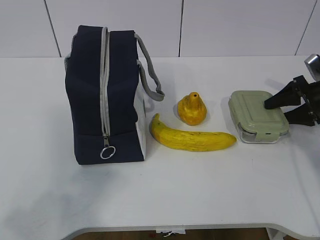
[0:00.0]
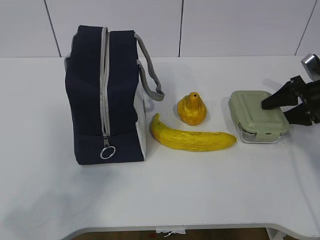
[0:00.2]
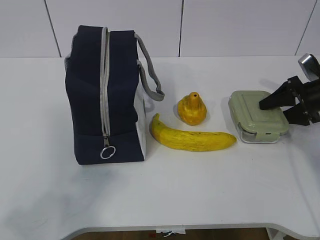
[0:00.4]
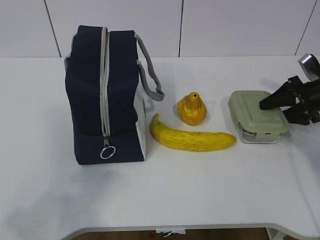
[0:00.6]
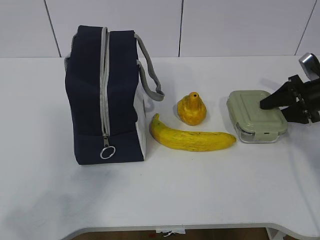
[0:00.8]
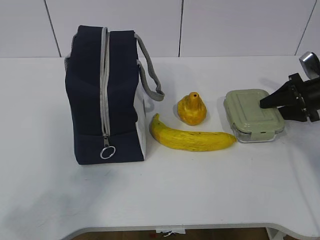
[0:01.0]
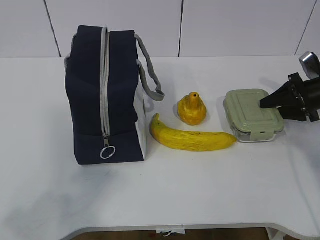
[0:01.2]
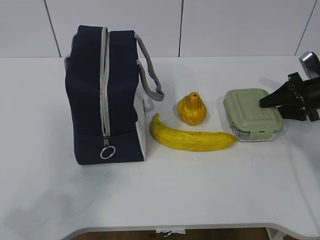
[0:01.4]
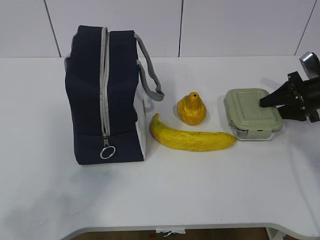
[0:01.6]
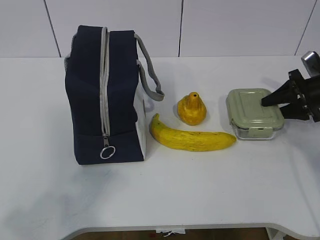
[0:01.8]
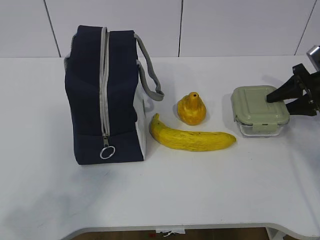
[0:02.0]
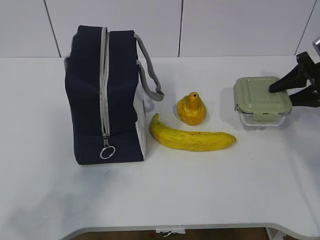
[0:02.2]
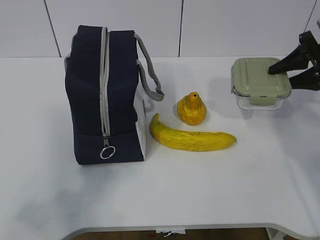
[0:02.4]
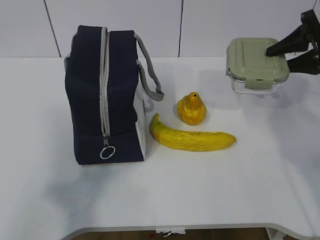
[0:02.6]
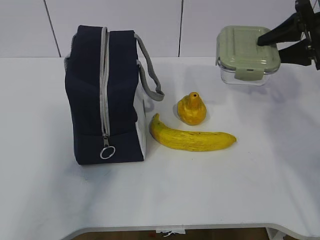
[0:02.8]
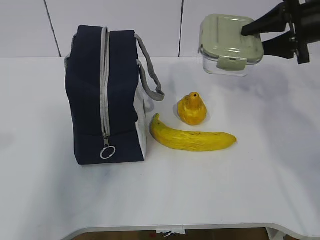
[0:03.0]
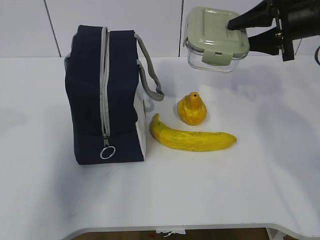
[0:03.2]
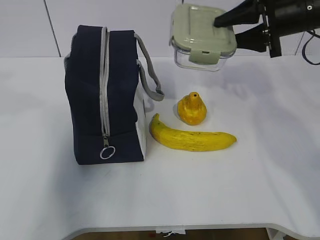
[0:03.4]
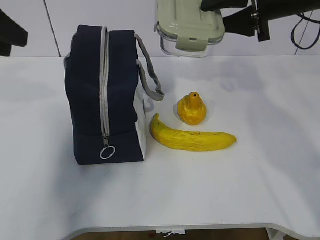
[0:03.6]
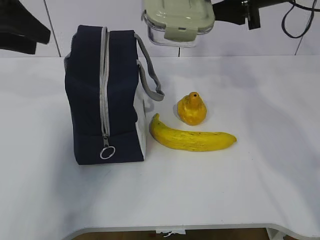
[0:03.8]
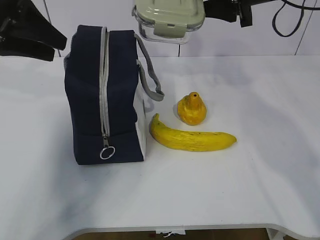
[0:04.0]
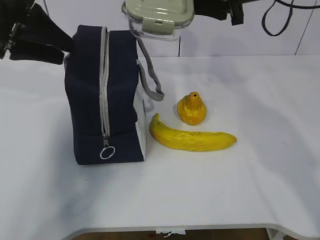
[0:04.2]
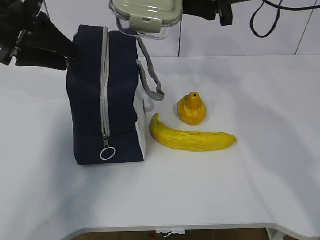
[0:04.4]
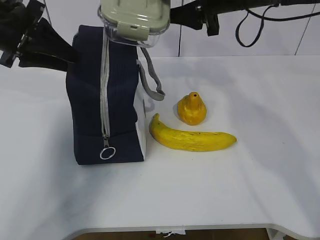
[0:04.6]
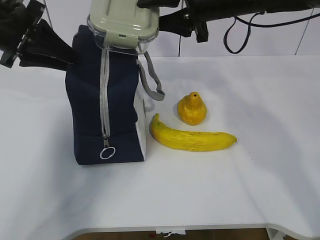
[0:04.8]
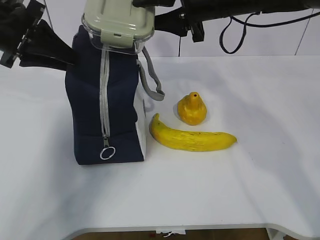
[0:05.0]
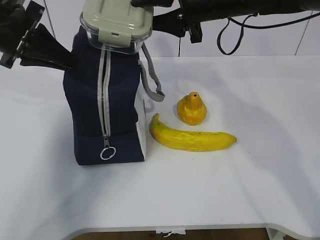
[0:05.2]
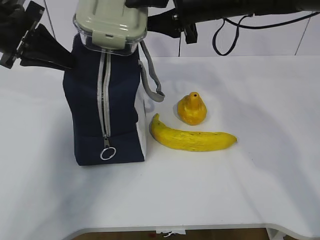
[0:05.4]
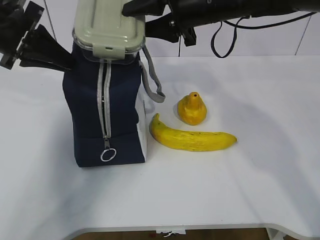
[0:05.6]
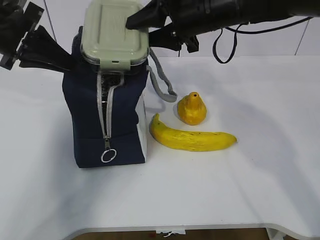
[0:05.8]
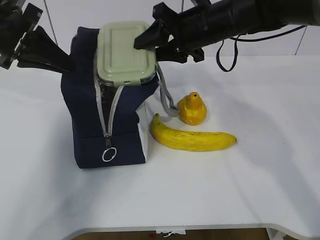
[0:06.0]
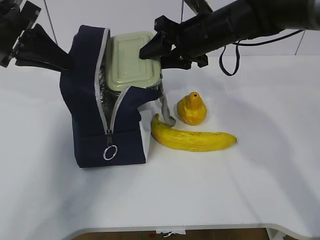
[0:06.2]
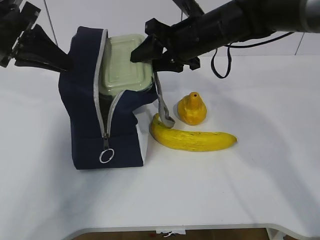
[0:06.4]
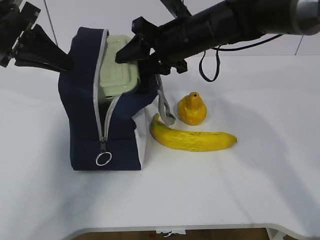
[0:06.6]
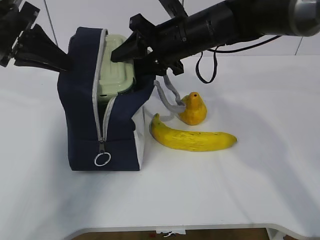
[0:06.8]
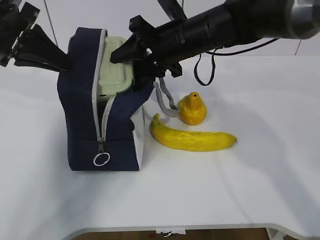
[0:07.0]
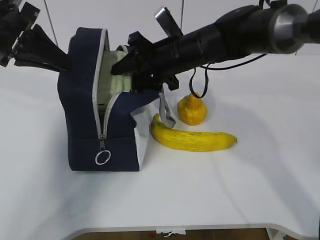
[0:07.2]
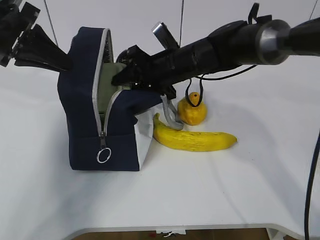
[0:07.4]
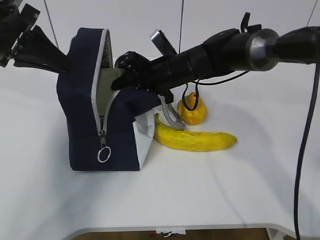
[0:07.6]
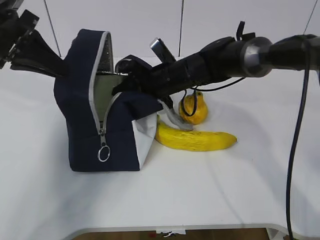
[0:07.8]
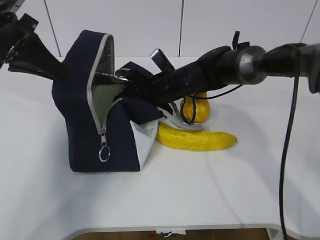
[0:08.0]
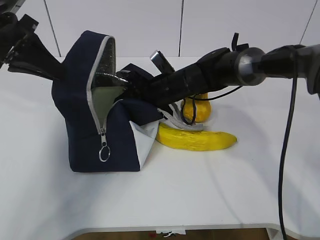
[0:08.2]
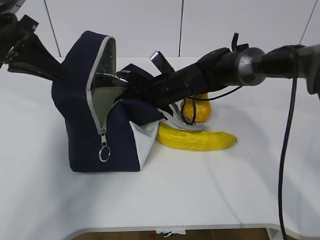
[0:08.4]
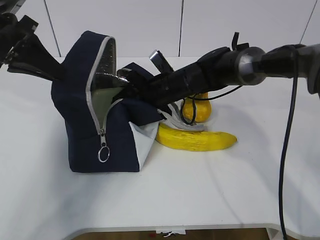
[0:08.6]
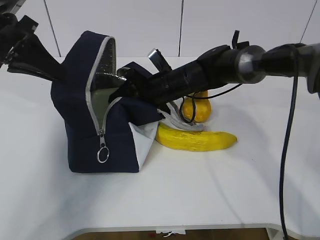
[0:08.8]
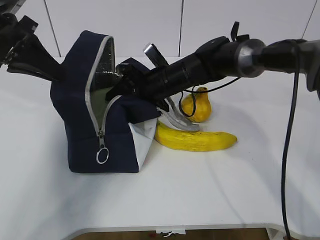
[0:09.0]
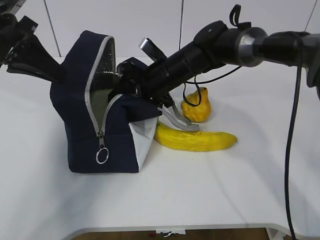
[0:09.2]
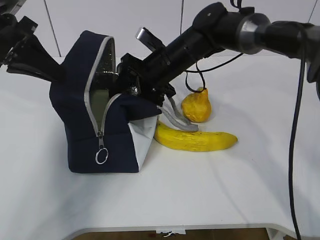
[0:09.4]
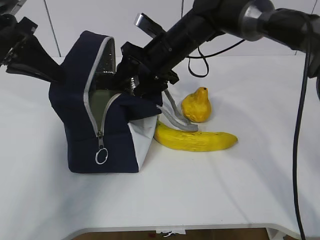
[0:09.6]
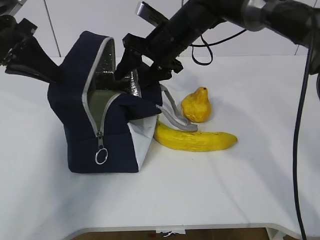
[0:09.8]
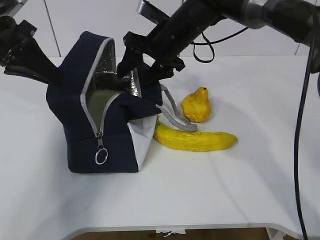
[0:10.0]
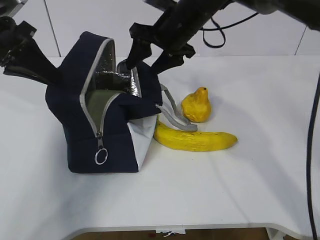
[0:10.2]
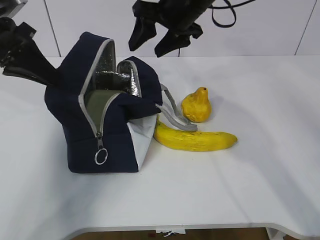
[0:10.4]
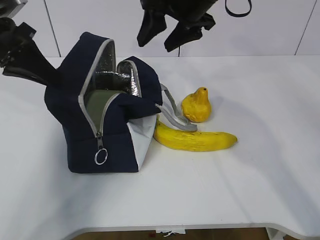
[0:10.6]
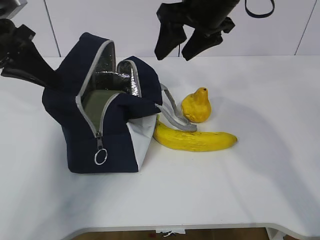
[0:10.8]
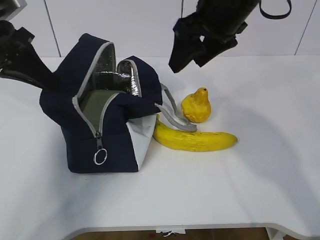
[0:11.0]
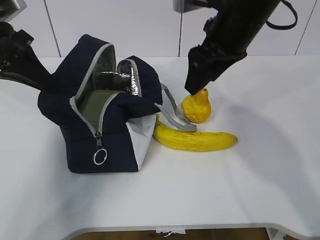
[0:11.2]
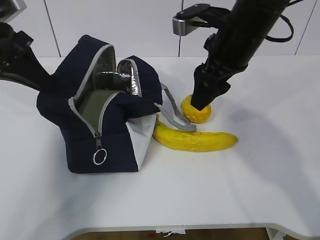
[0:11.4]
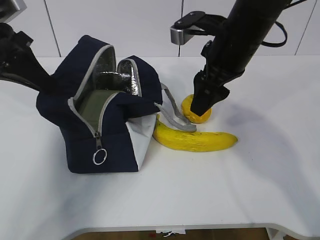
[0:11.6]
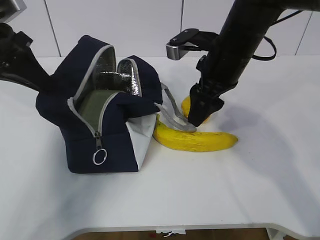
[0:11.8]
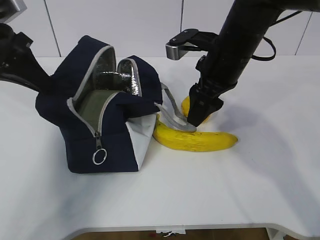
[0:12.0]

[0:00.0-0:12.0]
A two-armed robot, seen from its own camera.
Step, 0:00.4 to 0:03.4: Grab the lunch bag with your left hand.
Step, 0:03.6 to 0:06.4: Place it into the bag with your right hand.
0:00.0 to 0:01.6: Neither gripper changes place.
0:01.6 to 0:03.0: The left gripper is displaced forward and upward by about 15 cm. The right gripper travels upward and to the left by some 15 cm.
0:03.0 to 0:04.4: The right gripper travels to the left and upward by approximately 15 cm, while the left gripper heads forward, covering approximately 25 cm.
0:04.4 to 0:06.0: The left gripper closes up. Meanwhile the right gripper goes some 10 cm downward and to the left.
0:06.0 to 0:07.6: The right gripper shifts about 10 cm downward.
0:07.6 to 0:09.0: The grippers move only a little.
0:09.0 to 0:10.4: The right gripper heads upward, covering about 15 cm.
0:10.4 to 0:12.0: The right gripper goes about 10 cm backward and downward.

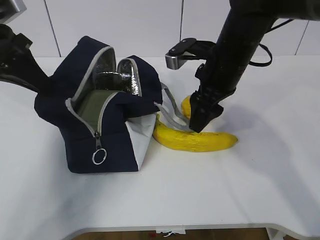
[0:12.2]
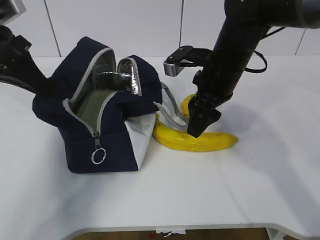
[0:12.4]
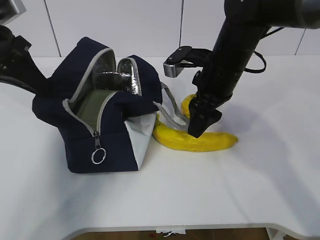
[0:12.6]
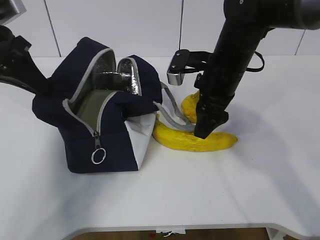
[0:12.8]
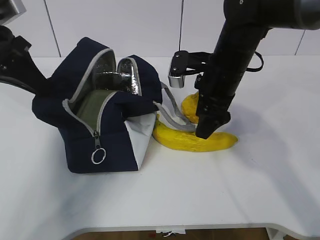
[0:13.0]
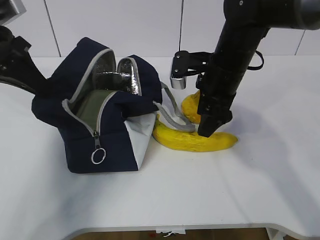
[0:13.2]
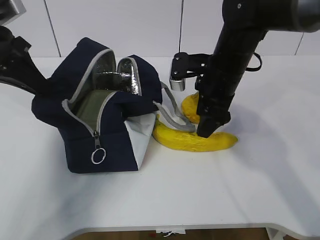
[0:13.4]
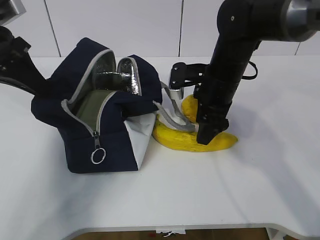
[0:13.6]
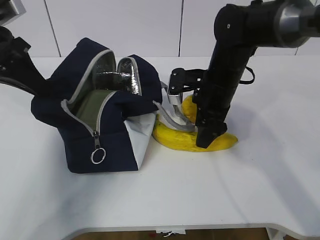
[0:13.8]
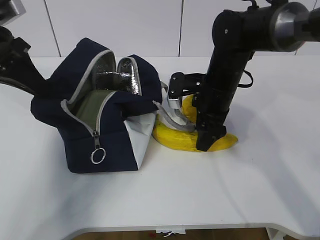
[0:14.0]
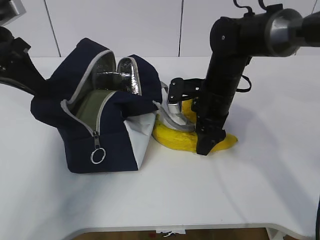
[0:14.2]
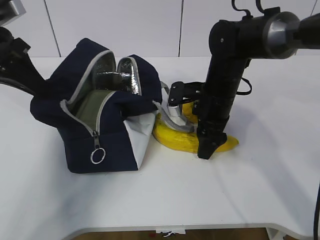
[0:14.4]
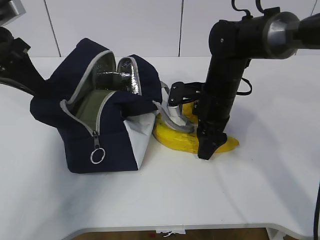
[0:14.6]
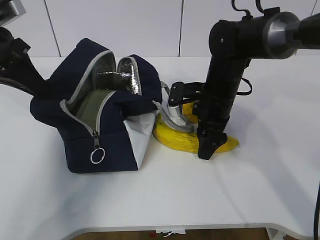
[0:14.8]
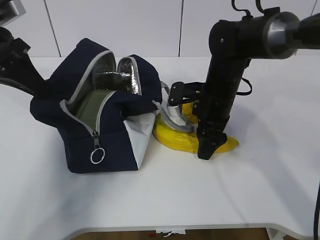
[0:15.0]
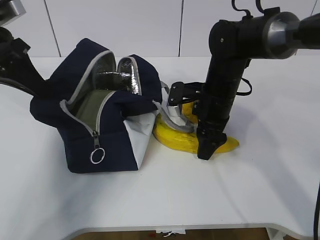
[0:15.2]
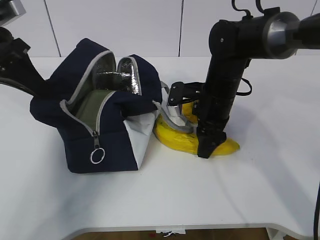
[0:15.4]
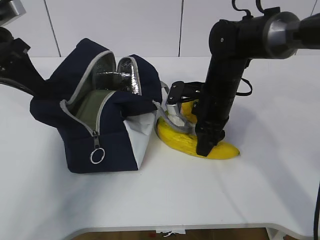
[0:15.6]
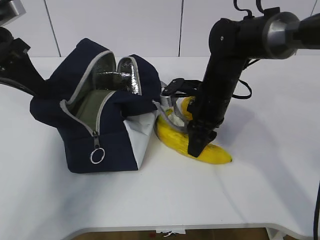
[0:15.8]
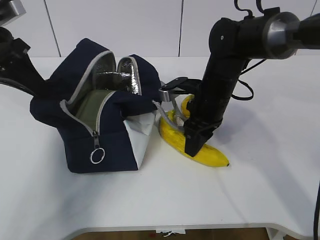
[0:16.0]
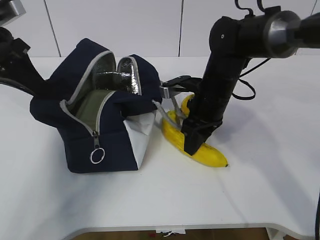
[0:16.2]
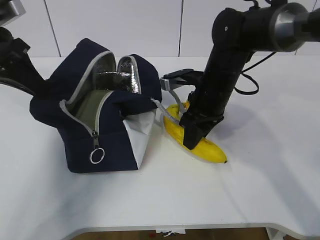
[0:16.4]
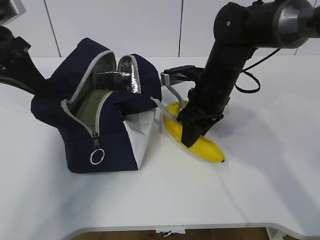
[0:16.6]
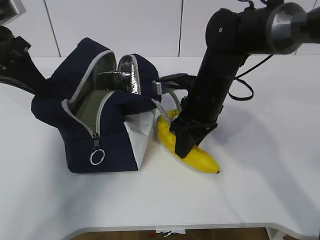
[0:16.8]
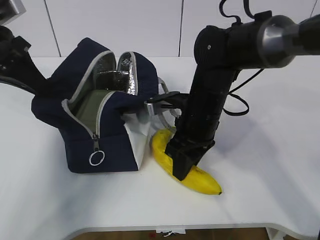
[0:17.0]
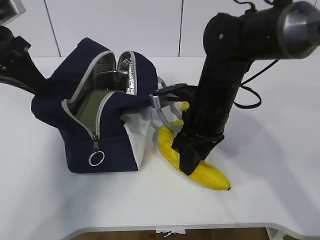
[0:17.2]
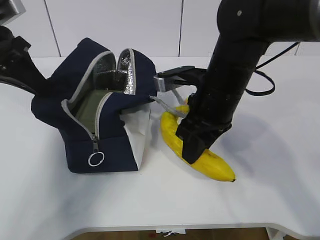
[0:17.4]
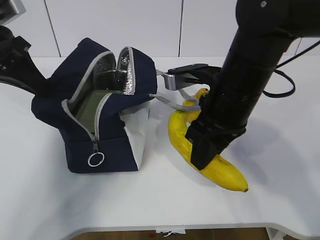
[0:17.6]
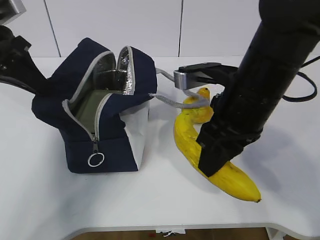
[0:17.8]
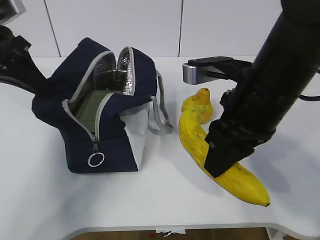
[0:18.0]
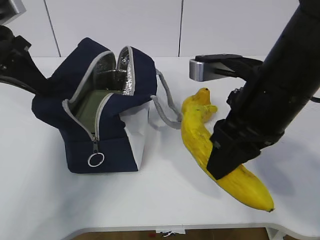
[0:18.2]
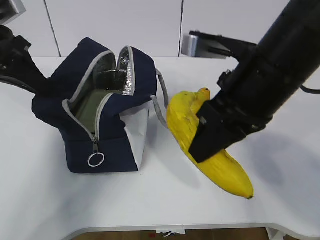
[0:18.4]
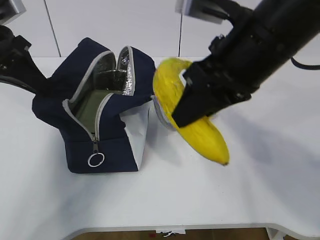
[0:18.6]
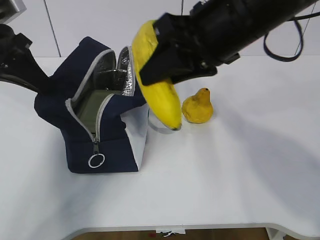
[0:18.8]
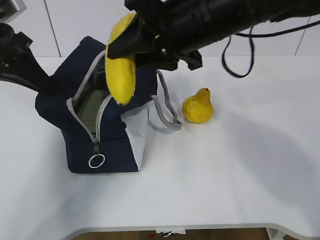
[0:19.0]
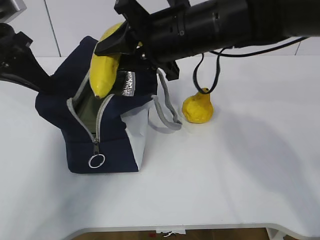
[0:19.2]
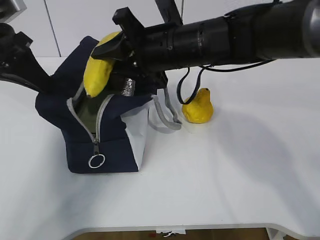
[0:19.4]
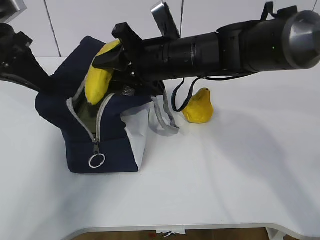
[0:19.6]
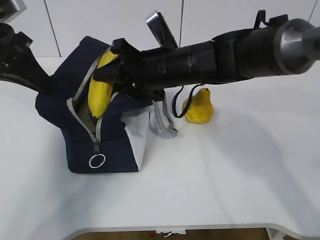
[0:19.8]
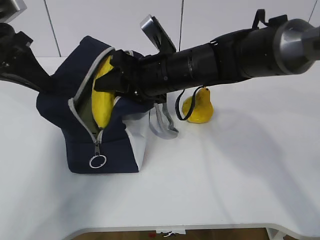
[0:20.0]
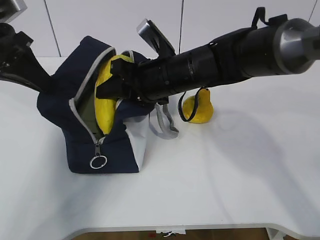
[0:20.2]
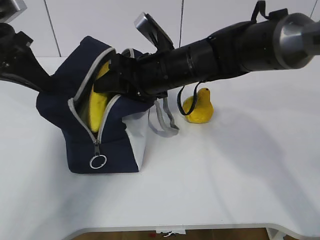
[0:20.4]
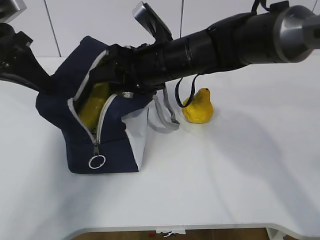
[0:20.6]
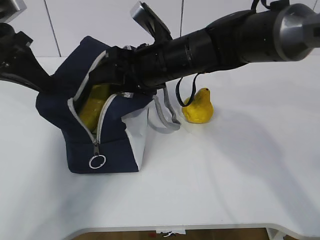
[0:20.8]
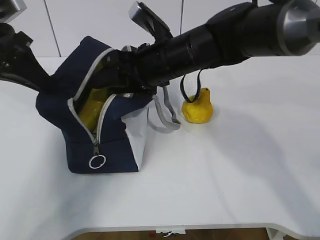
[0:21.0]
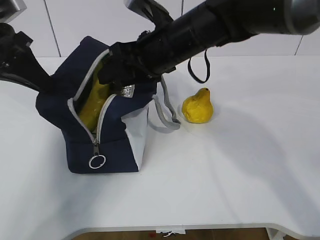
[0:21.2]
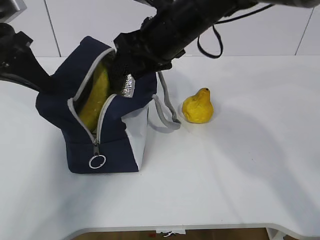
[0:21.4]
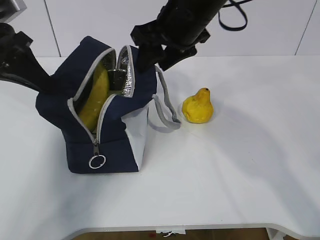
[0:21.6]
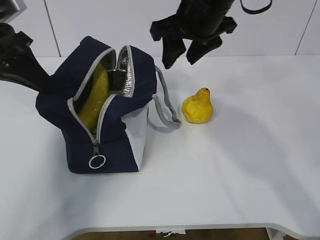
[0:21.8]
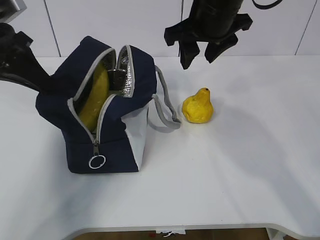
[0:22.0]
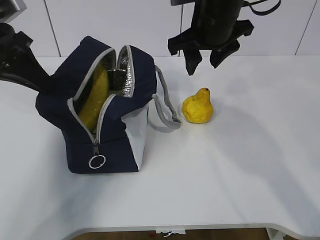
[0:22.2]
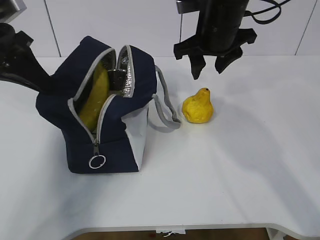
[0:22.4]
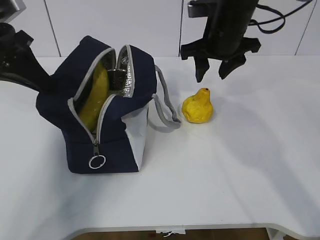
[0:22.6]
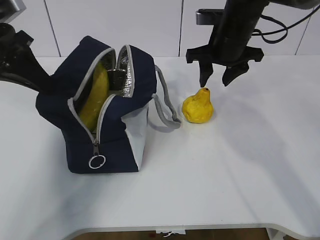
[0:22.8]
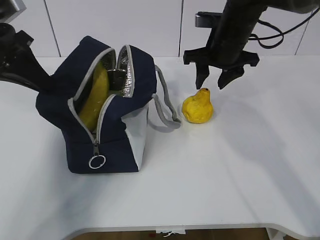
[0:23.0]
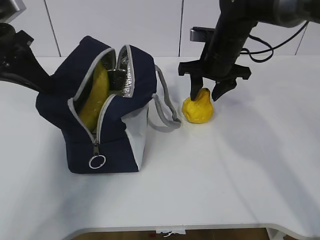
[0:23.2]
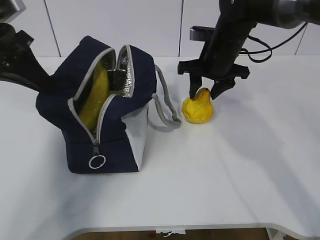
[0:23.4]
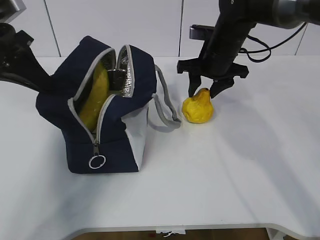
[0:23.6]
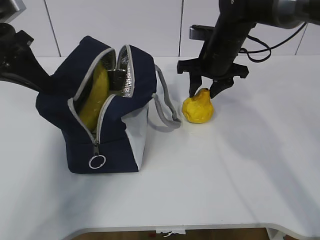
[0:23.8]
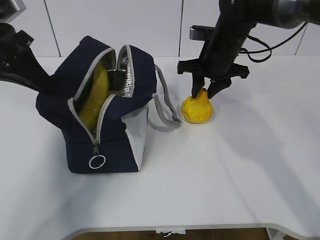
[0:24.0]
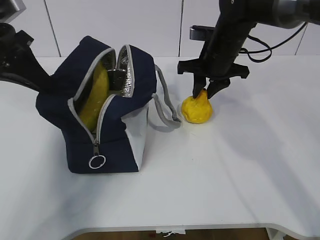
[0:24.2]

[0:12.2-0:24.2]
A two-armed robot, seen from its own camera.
Step, 0:12.4 to 0:15.8: Place it into the bag with your right hand.
Step, 0:16.2 to 0:19.0: Grab the pear with your right hand.
Step, 0:21.4 to 0:23.0: Grab the lunch bag with your right hand.
0:12.2 to 0:13.8: The right gripper shifts roughly 5 cm downward.
0:13.8 to 0:15.2: The grippers move only a little.
0:15.2 to 0:16.6: The right gripper closes.
0:16.6 to 0:18.2: The right gripper moves backward and upward, approximately 15 cm.
0:18.2 to 0:19.8: The right gripper is displaced forward and to the left by roughly 15 cm.
0:21.2 to 0:22.6: The right gripper moves to the right, some 10 cm.
0:22.6 to 0:24.2: The right gripper moves downward, some 5 cm.
